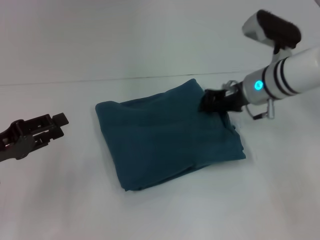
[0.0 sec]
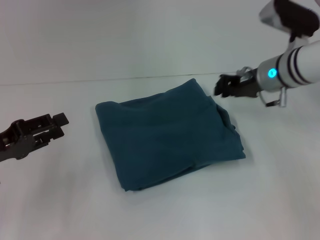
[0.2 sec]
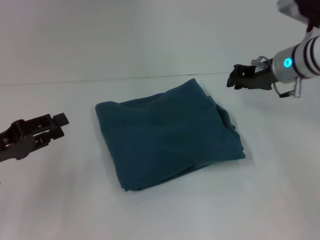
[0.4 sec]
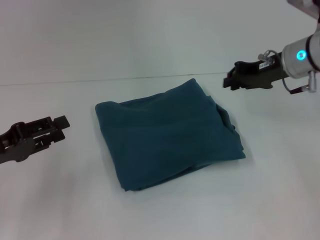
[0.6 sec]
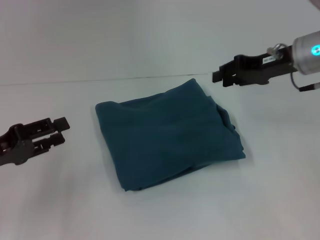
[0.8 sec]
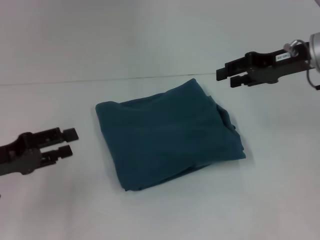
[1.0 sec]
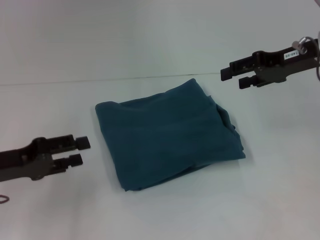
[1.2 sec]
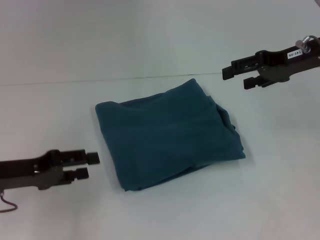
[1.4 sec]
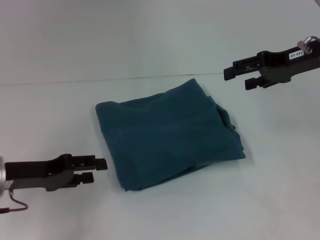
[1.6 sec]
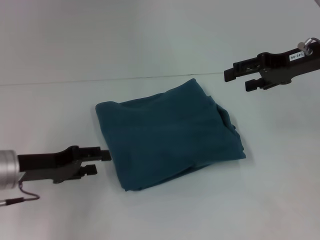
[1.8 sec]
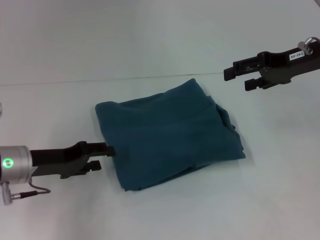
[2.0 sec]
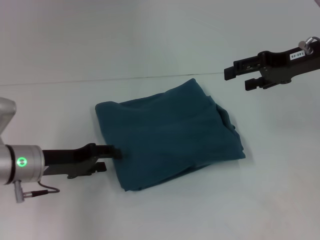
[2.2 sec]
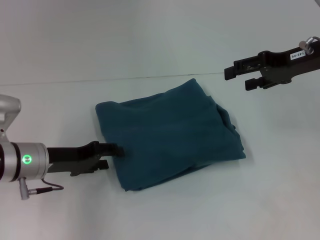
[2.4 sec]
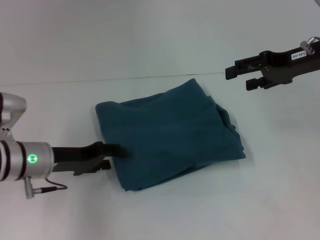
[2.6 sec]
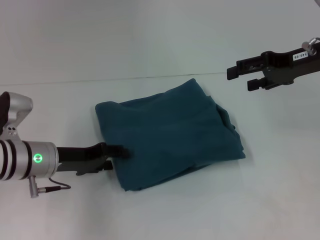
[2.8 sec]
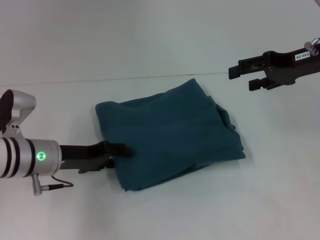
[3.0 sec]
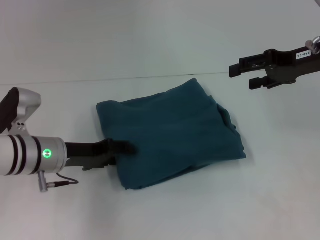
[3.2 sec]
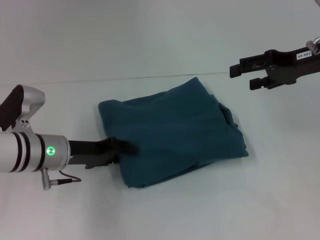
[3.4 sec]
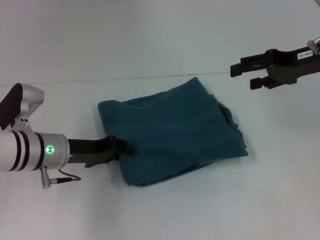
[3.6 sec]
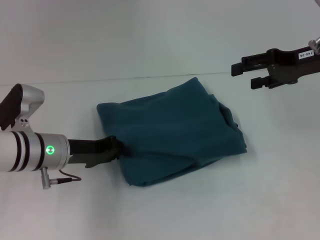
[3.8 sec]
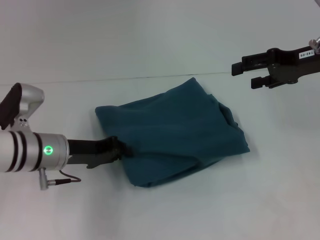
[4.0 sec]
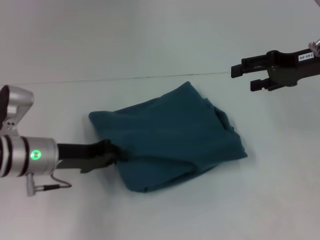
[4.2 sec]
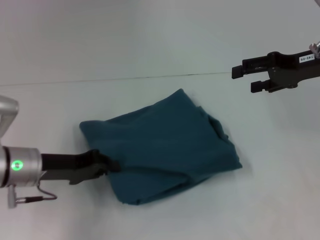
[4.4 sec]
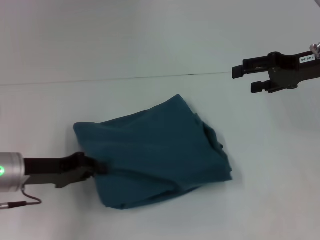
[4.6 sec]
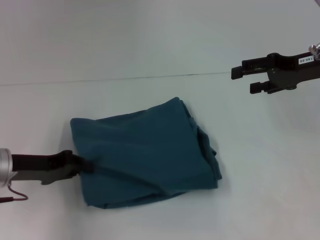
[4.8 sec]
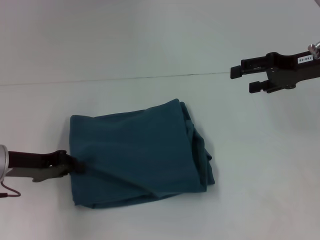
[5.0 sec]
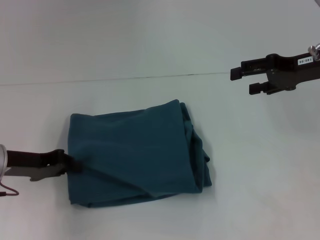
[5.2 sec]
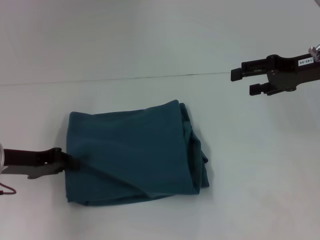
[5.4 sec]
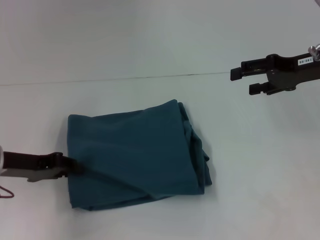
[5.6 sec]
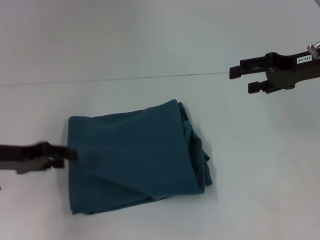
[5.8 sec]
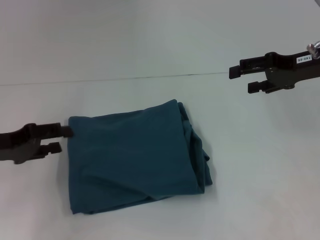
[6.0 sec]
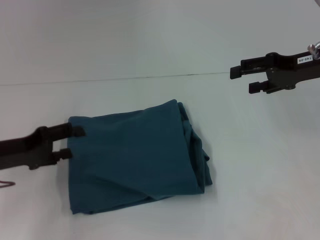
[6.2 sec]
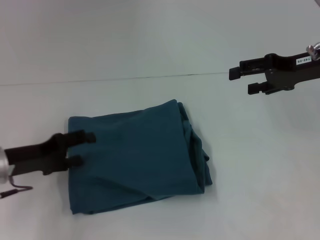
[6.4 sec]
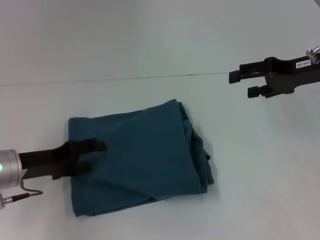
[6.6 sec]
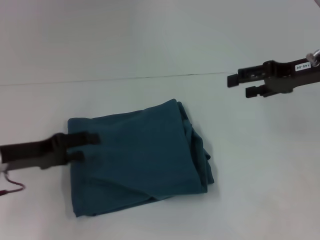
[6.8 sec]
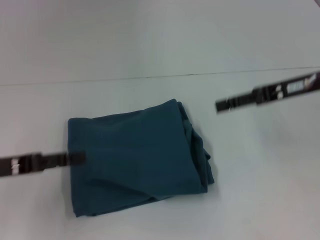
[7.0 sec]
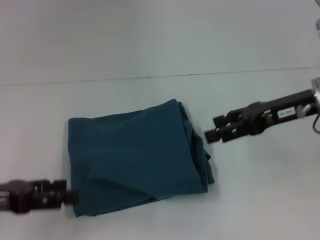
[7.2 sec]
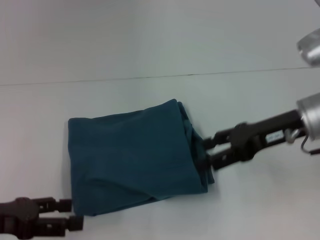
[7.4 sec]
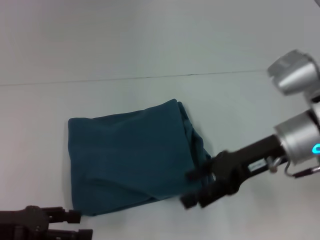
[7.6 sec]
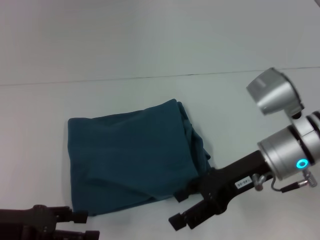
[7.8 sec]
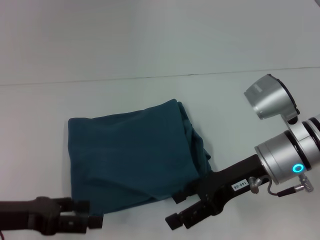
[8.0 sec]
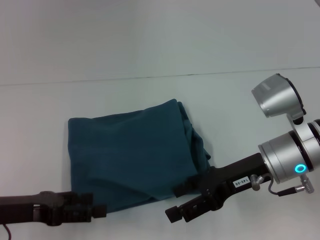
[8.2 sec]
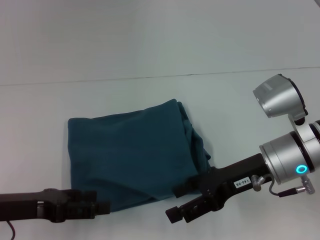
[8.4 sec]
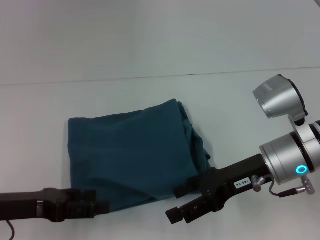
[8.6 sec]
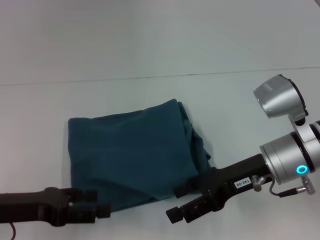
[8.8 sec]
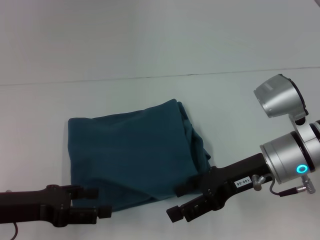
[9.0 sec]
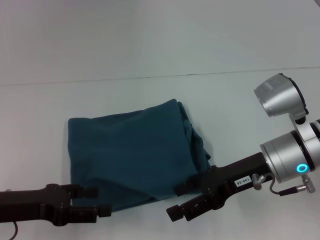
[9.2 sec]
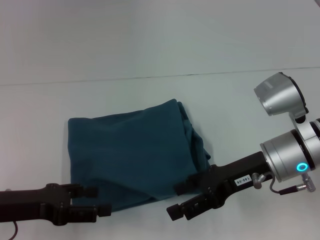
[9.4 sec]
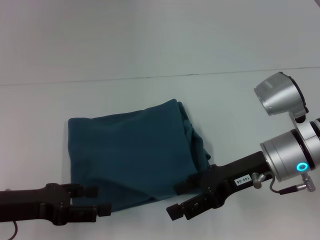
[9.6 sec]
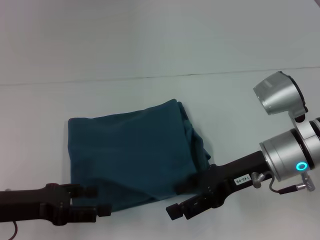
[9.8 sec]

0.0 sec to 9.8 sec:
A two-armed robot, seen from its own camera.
0.0 sec to 1.4 sec: The right gripper travels to the right and upward by some 15 cm, and opens up.
1.4 sec to 2.8 sec: The left gripper shifts some 10 cm to the right and forward.
2.8 sec to 4.2 sec: The left gripper closes.
4.2 sec to 5.6 sec: The left gripper moves to the left, some 5 cm.
5.6 sec to 7.0 sec: The left gripper is displaced backward by approximately 5 cm, and opens up.
7.0 sec to 8.4 sec: The right gripper shifts some 15 cm to the left, downward and backward.
8.4 sec to 9.8 sec: There are only small adjustments of the grippers.

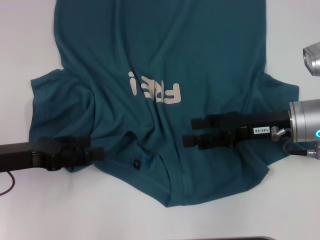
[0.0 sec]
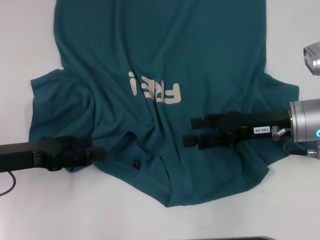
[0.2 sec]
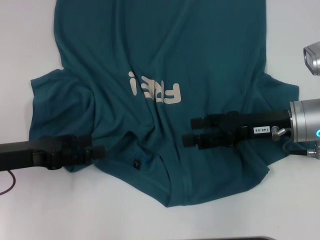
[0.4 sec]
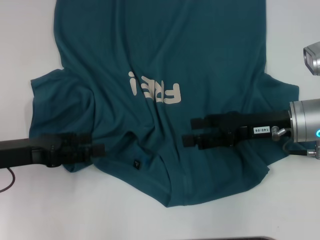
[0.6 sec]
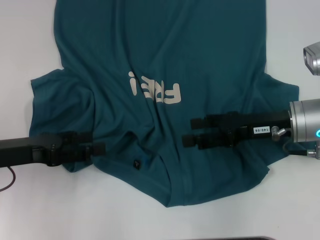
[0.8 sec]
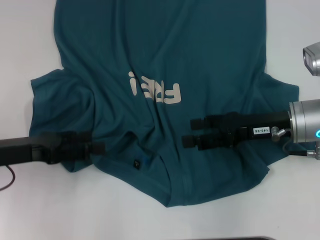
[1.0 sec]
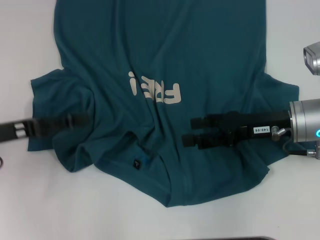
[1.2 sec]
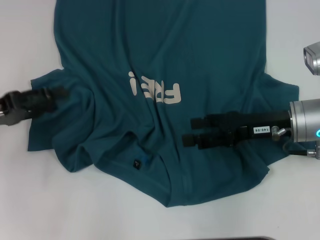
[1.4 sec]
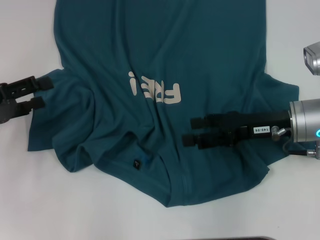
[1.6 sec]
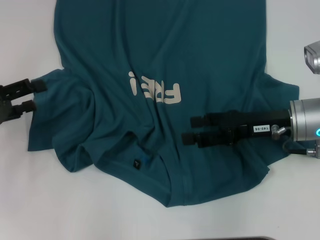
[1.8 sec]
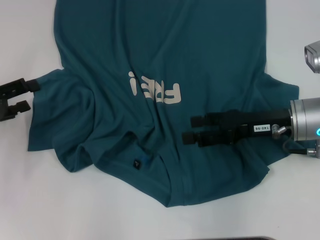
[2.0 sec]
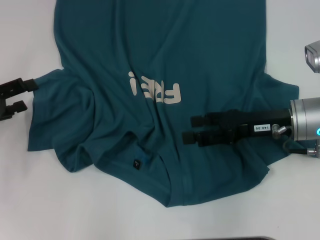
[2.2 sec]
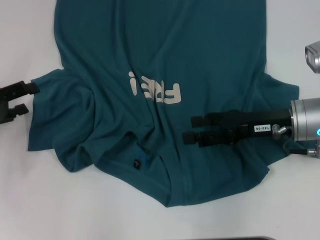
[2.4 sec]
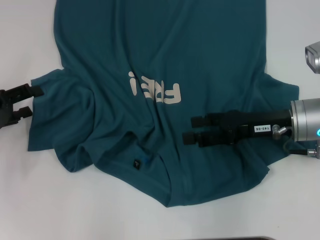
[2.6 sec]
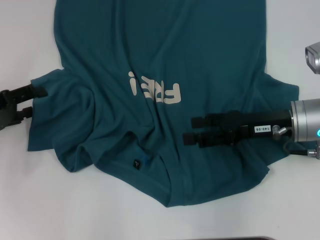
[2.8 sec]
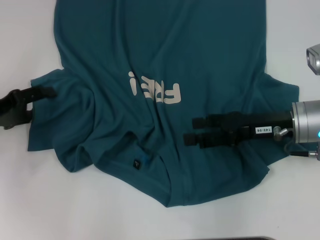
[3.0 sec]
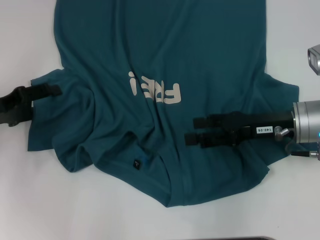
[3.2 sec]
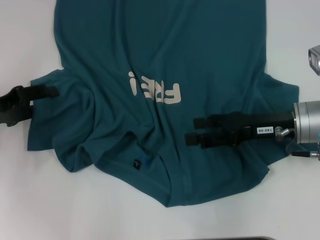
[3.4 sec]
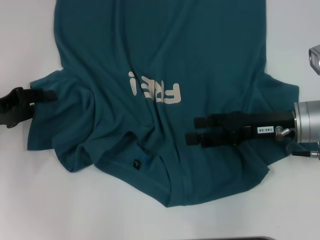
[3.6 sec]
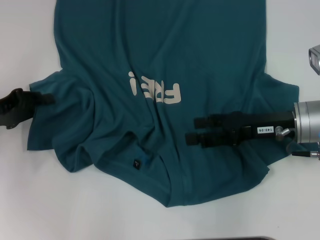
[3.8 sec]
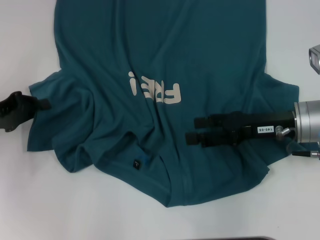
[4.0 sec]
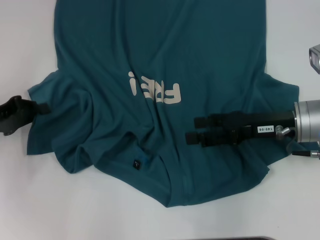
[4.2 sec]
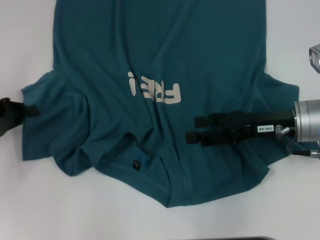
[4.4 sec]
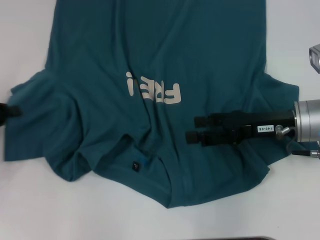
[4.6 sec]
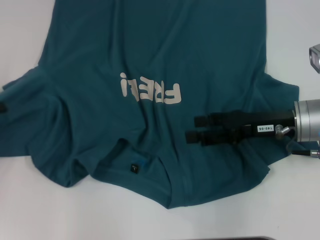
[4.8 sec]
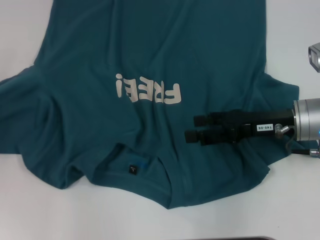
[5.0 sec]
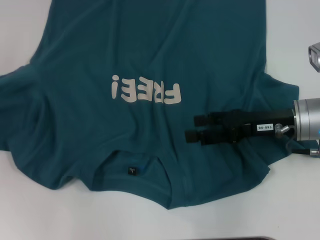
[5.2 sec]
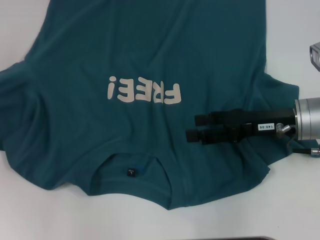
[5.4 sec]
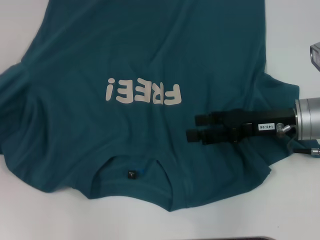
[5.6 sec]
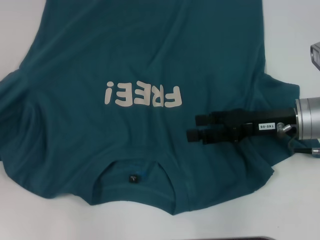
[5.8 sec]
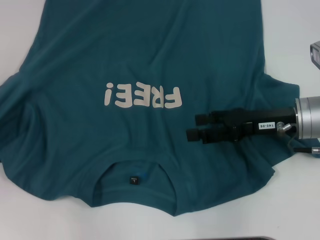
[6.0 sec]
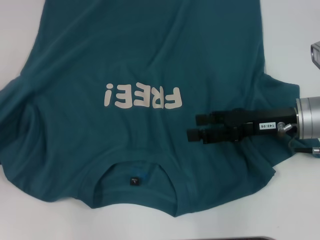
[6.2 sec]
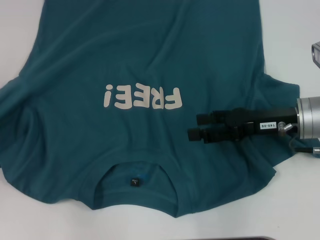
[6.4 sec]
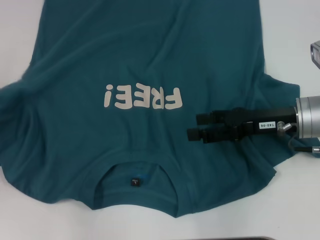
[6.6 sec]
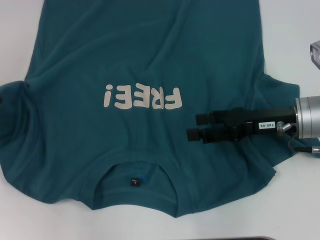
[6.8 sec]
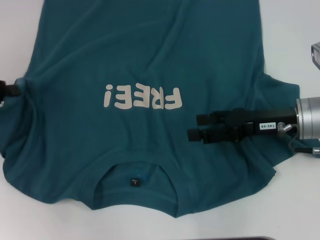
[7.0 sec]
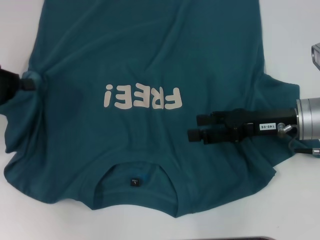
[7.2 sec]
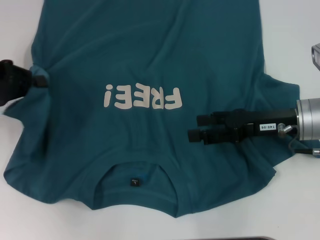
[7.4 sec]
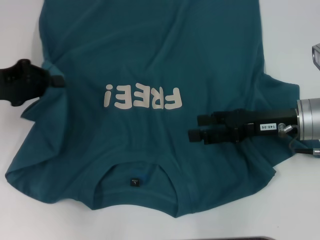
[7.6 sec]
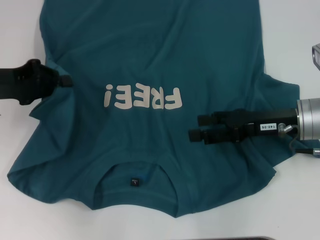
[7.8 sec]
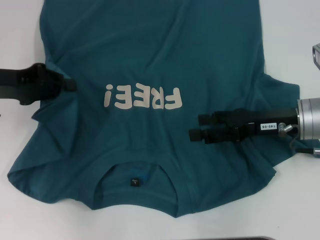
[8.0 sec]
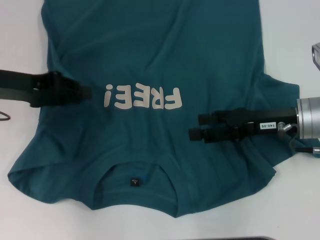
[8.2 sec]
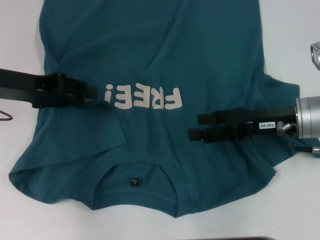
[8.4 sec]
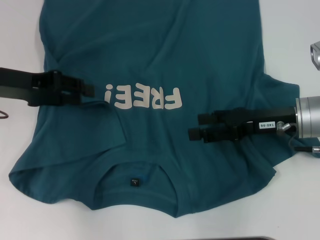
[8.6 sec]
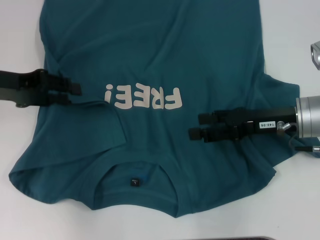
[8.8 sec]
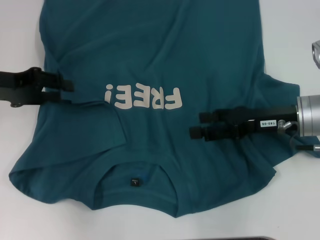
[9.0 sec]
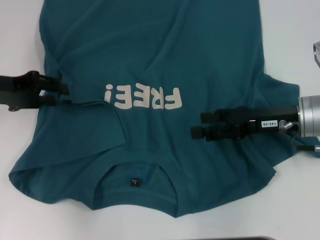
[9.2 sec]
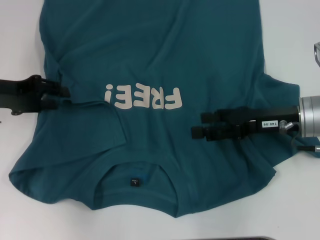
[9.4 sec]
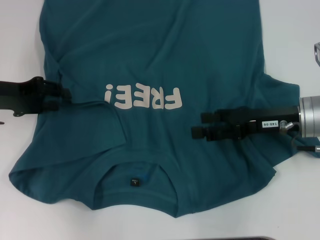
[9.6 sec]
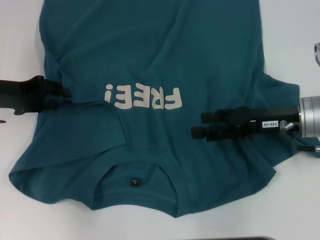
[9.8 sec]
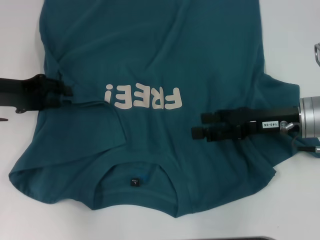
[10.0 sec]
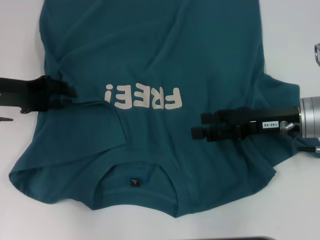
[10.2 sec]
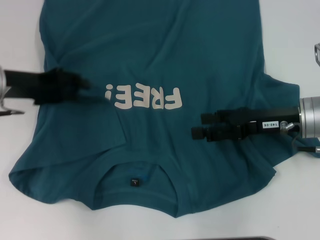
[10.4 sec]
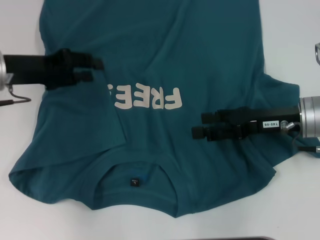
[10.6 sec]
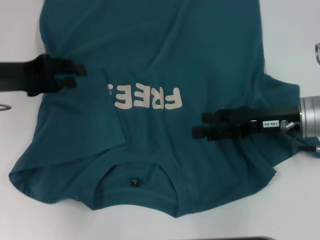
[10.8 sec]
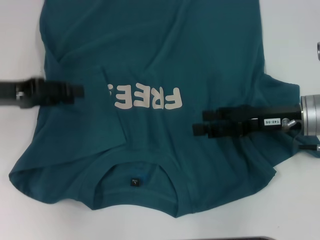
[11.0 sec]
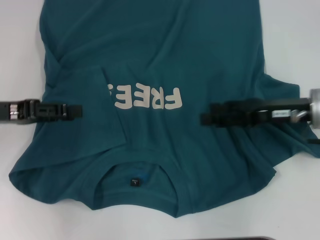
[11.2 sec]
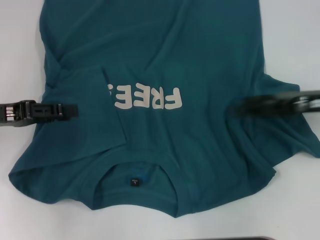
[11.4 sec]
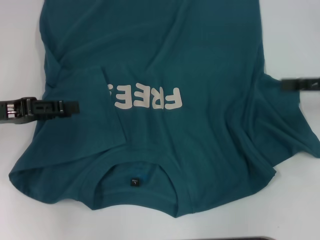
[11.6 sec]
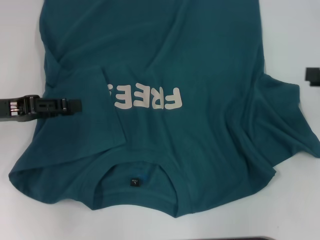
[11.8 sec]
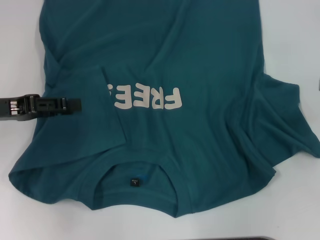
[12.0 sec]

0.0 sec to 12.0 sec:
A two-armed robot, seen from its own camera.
Step, 0.0 sec to 10.4 sec: Fold the bottom left sleeve with your left hand.
0.0 sec to 1.6 sec: The left gripper moves some 5 cm.
1.6 sec to 3.0 sec: There are only small adjustments of the grippers.
3.0 sec to 4.4 sec: The left gripper closes.
4.4 sec to 6.0 sec: The left gripper is displaced to the left by some 5 cm.
6.0 sec to 7.6 sec: The left gripper travels to the right and forward by some 10 cm.
7.6 sec to 9.0 sec: The left gripper opens.
9.0 sec to 10.4 sec: The grippers move only a little.
10.4 sec to 12.0 sec: The right gripper travels to the right and upward by approximately 20 cm. The left gripper moves backward, approximately 5 cm.
